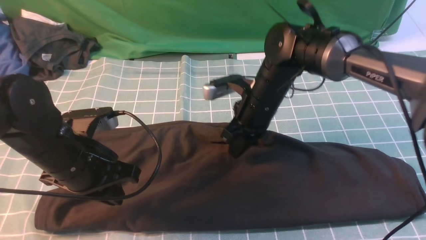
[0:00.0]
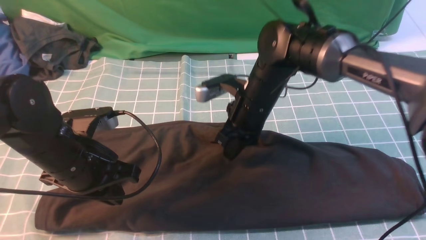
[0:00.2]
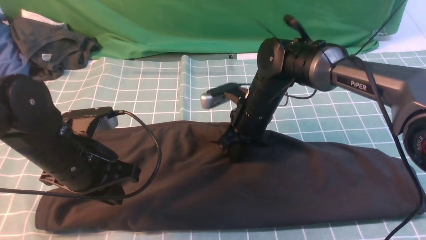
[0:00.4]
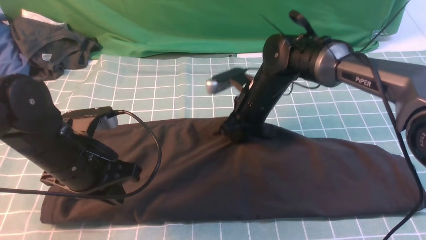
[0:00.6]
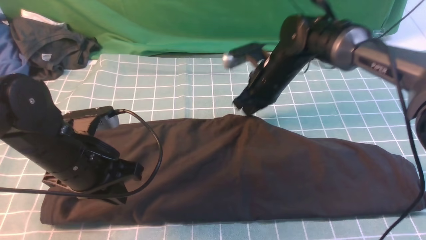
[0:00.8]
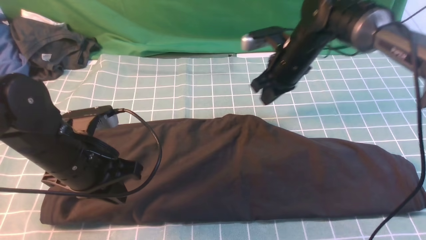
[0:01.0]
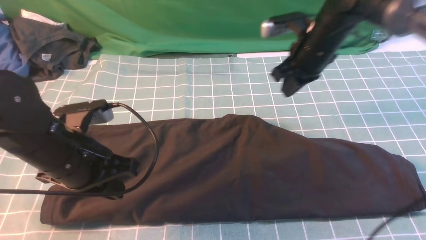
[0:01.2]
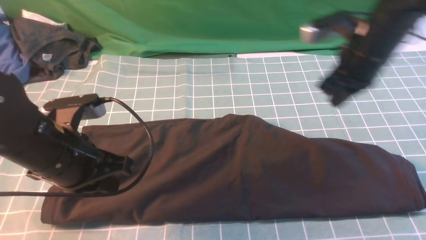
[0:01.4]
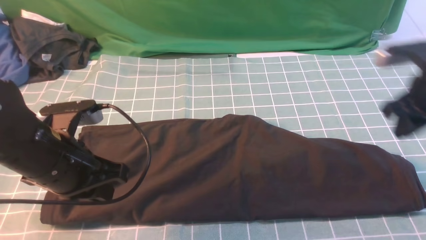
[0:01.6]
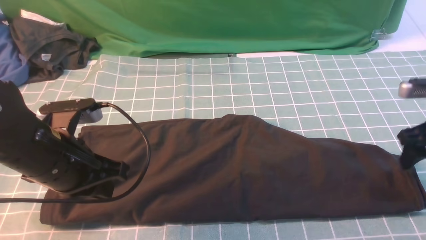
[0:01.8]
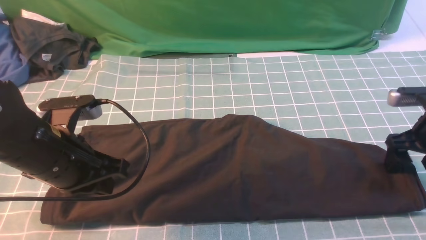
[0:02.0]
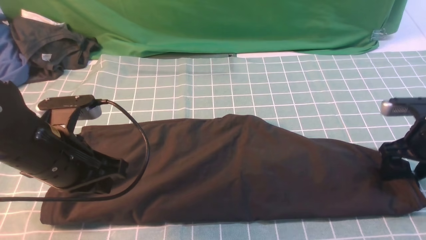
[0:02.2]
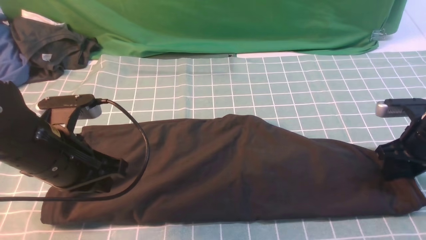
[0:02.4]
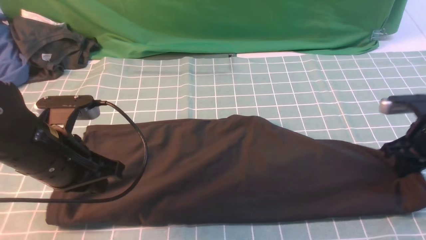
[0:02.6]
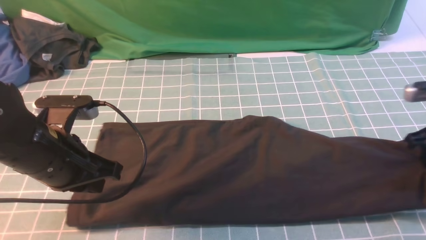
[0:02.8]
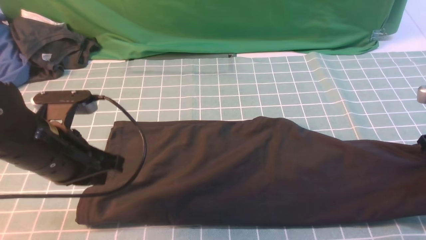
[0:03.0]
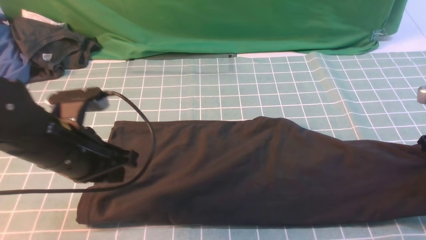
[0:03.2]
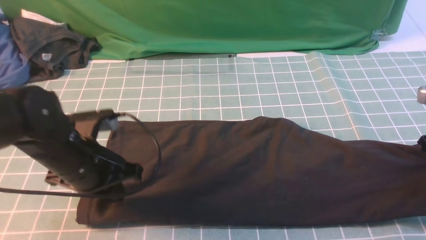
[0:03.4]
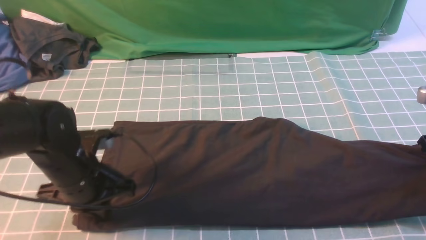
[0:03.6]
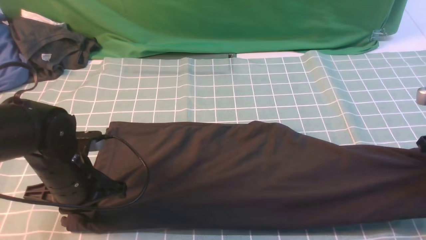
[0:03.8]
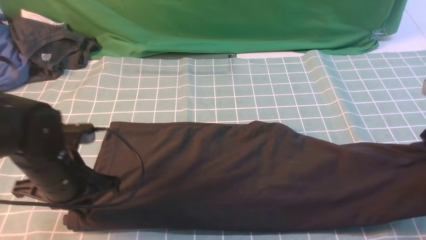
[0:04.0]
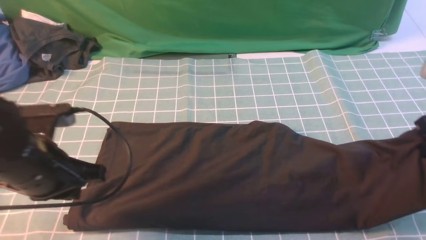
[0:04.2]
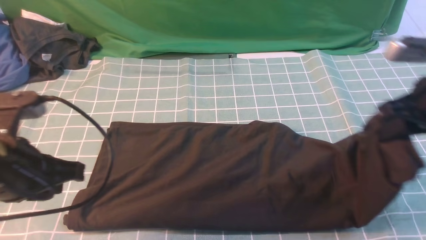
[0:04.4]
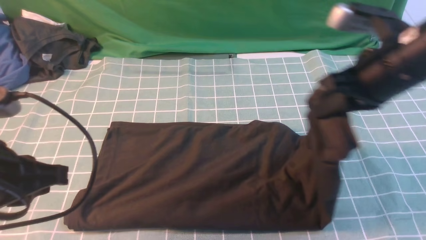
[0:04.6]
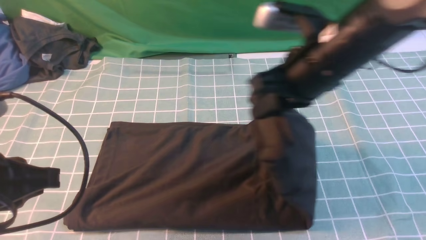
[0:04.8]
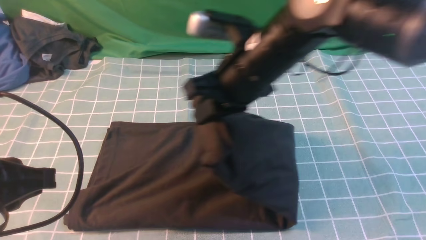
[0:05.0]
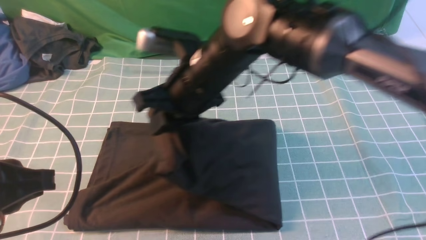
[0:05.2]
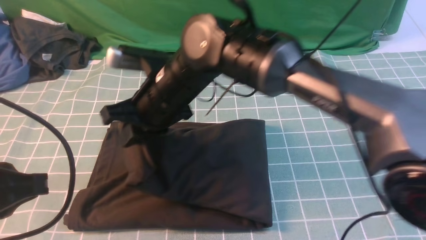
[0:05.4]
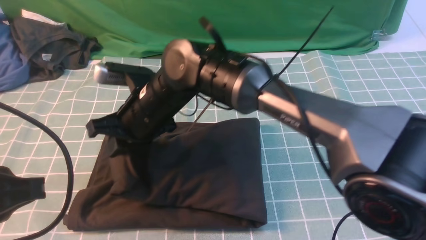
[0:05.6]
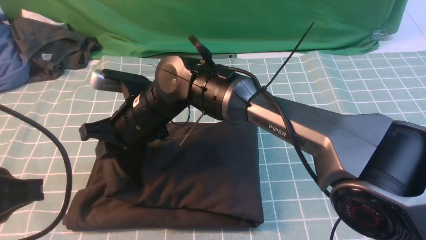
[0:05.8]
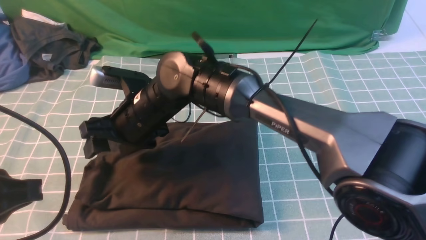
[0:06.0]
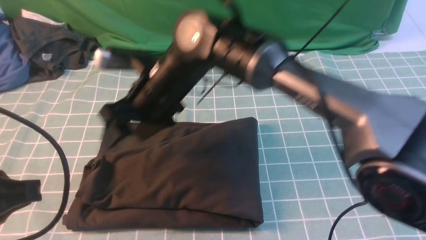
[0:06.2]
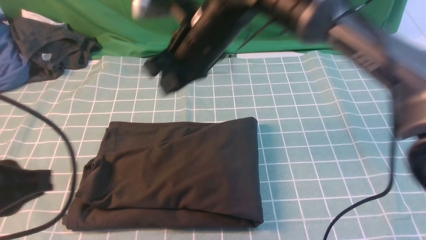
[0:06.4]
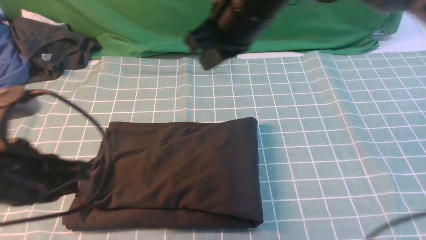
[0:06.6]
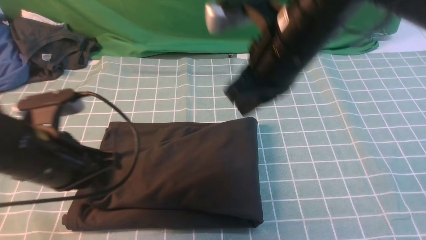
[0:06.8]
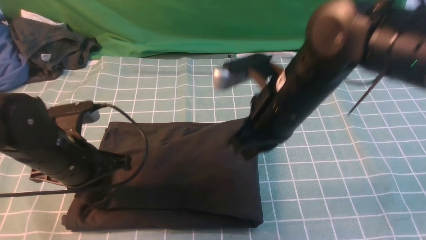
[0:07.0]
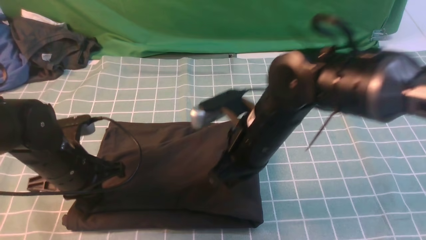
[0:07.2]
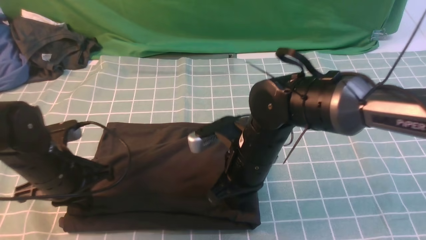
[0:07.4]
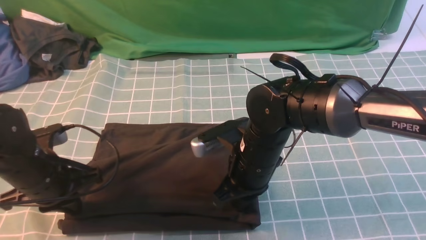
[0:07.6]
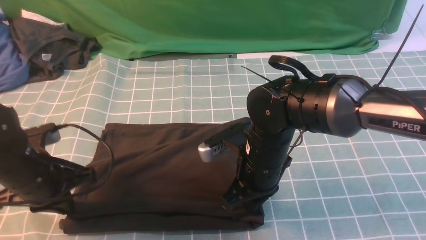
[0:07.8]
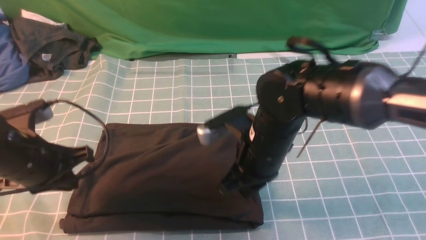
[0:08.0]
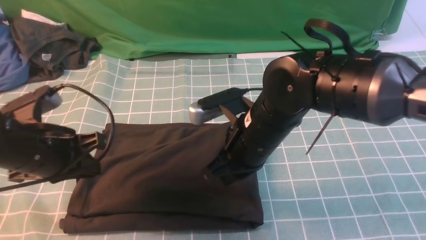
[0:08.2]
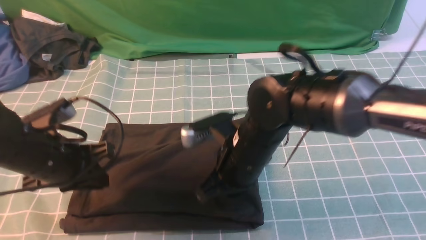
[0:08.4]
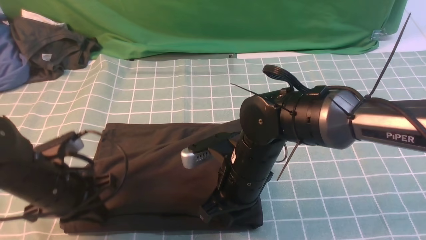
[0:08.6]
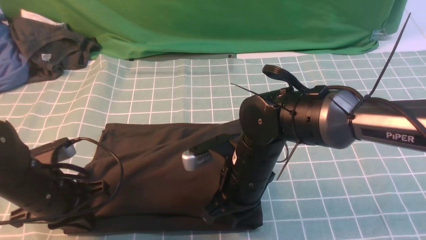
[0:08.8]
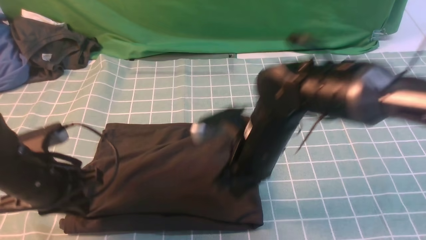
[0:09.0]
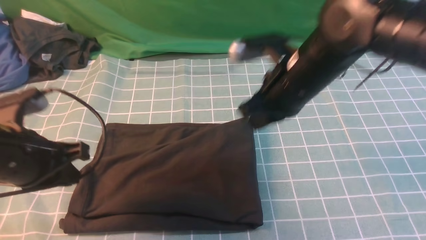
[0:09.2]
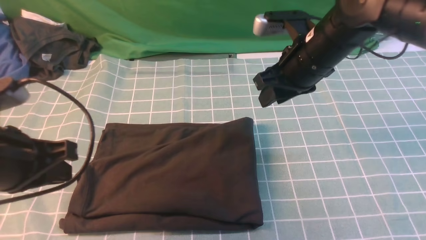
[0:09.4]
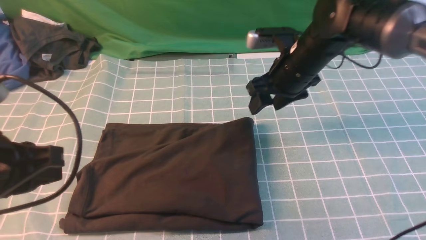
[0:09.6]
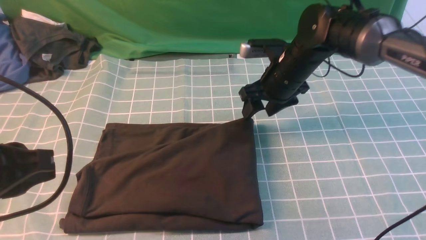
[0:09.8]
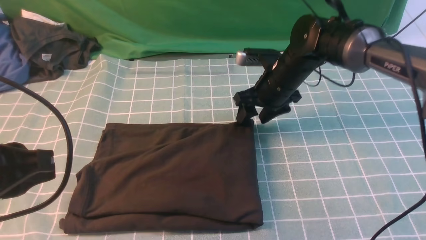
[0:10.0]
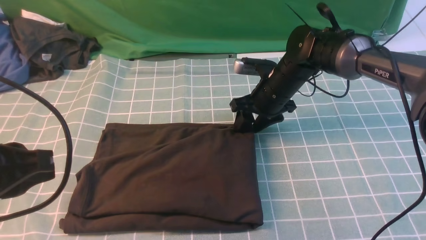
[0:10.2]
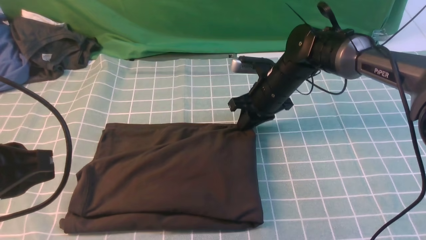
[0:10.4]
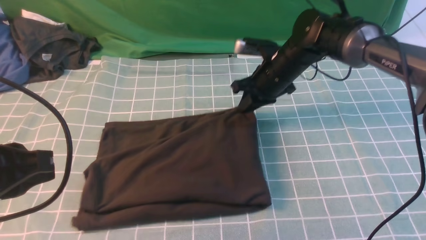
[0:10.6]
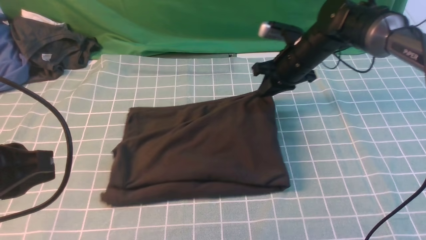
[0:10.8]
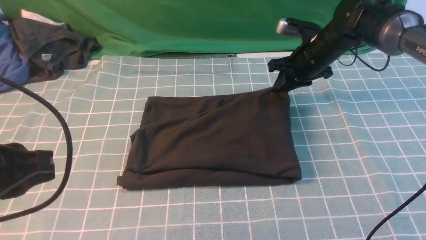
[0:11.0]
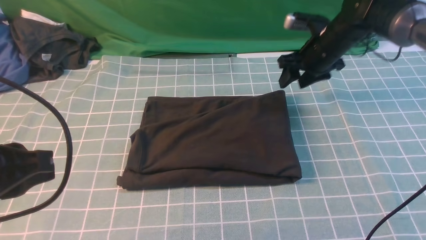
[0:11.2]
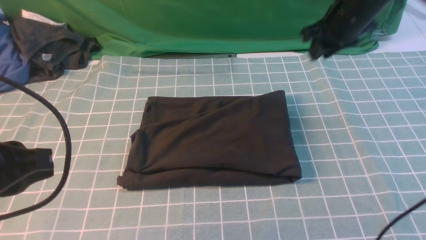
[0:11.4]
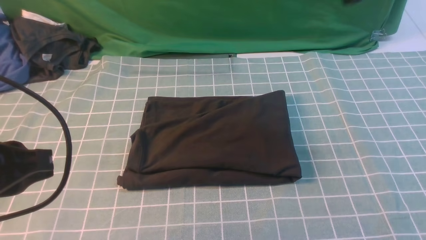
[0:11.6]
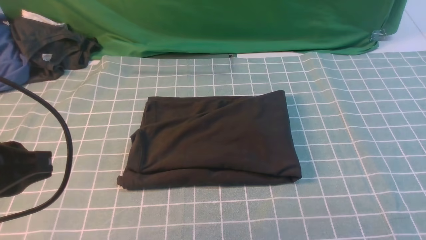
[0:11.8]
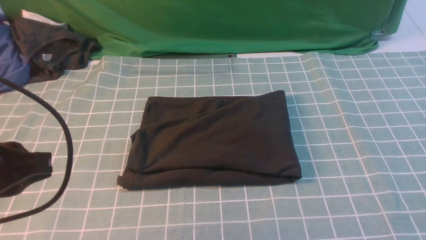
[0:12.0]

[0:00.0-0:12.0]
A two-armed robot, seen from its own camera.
Step, 0:00.0 to 0:02.8: use the right arm to clamp the right edge of the fabric.
Step, 0:03.0 to 0:06.2: use the right arm to drag the right edge of the fabric to the left and folds it over the left edge.
0:00.0 to 0:01.6: The right gripper travels to the right by roughly 25 cm, and opens.
0:01.6 to 0:03.0: The right gripper moves to the right, some 5 cm, and closes up.
0:03.0 to 0:04.4: The left gripper is displaced backward by some 5 cm. The right gripper is displaced to the left and upward by approximately 15 cm.
0:04.4 to 0:06.0: The left gripper heads backward, covering some 5 cm; the right gripper heads to the left, covering about 35 cm, and opens.
0:06.0 to 0:07.6: The left gripper is displaced downward and forward by some 20 cm; the right gripper heads to the right, covering roughly 15 cm, moves approximately 10 cm upward and comes back, and closes.
0:07.6 to 0:09.0: The right gripper moves upward, approximately 5 cm.
0:09.0 to 0:10.4: The left gripper is displaced upward and backward by approximately 15 cm; the right gripper travels forward by about 15 cm, and opens and closes again.
0:10.4 to 0:12.0: The right gripper travels upward, backward and to the right by roughly 40 cm.

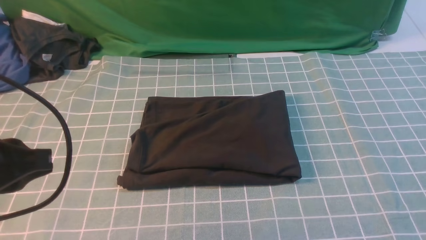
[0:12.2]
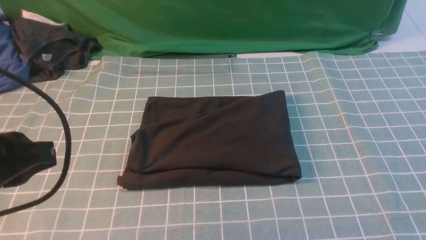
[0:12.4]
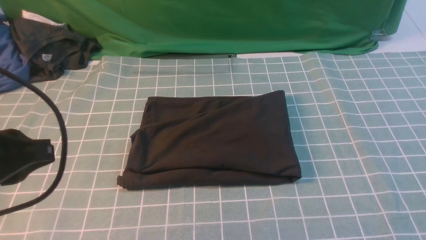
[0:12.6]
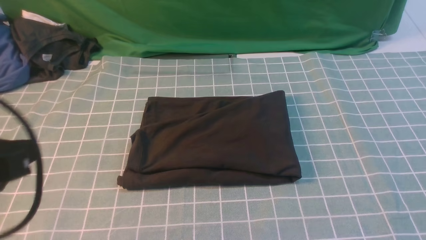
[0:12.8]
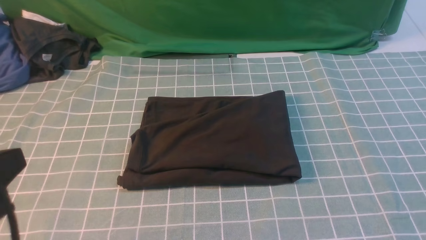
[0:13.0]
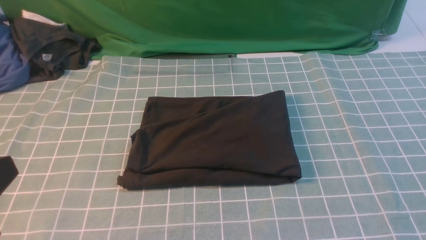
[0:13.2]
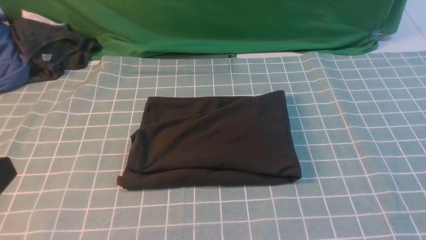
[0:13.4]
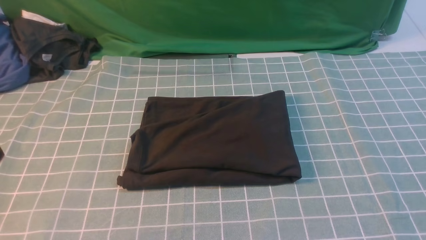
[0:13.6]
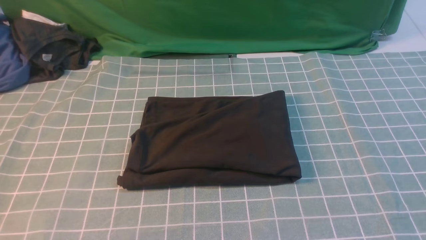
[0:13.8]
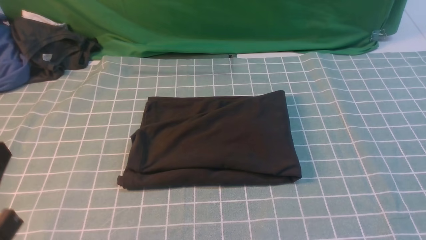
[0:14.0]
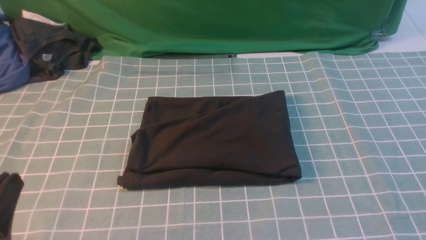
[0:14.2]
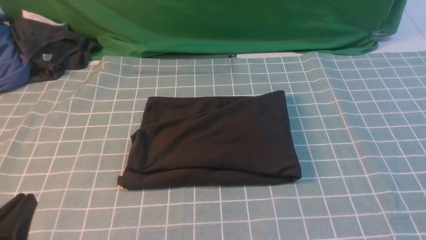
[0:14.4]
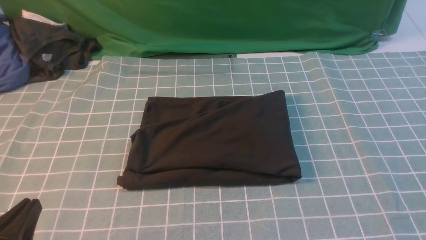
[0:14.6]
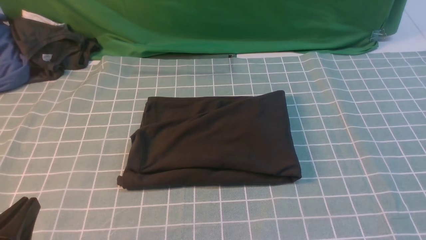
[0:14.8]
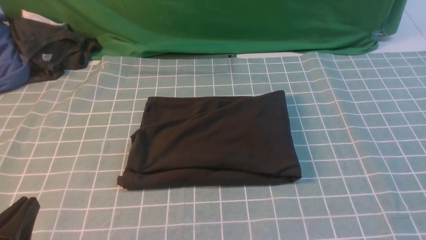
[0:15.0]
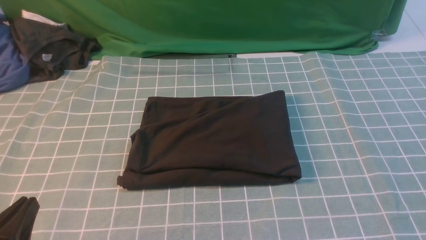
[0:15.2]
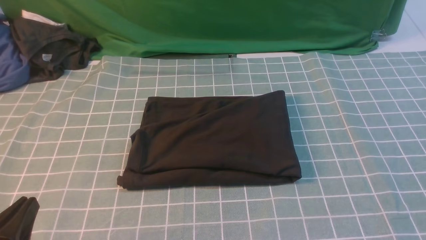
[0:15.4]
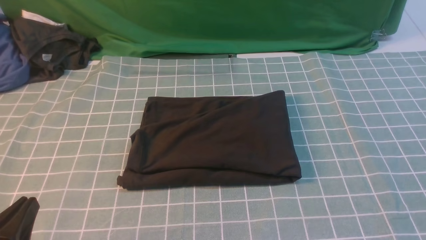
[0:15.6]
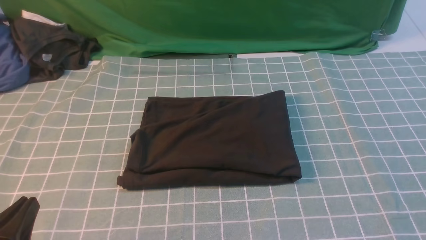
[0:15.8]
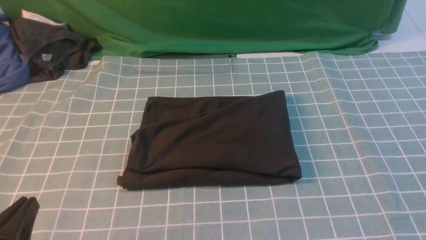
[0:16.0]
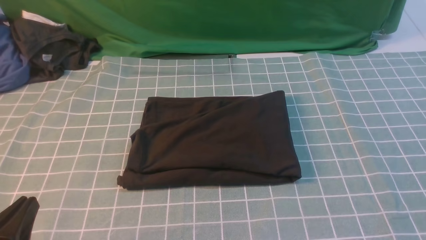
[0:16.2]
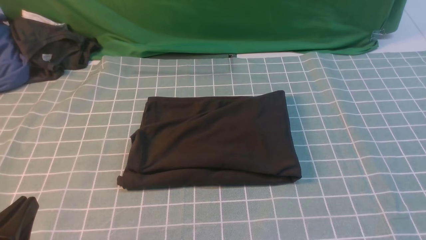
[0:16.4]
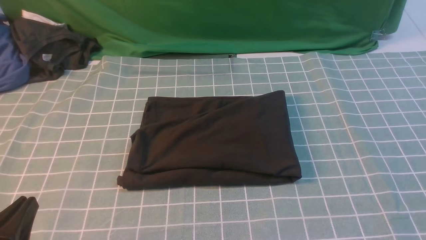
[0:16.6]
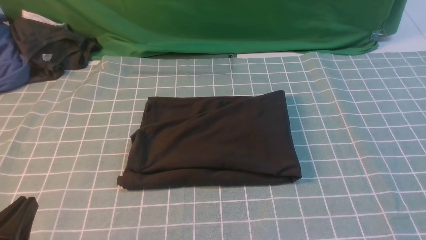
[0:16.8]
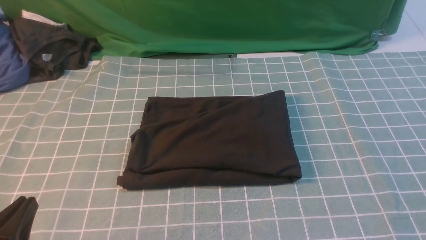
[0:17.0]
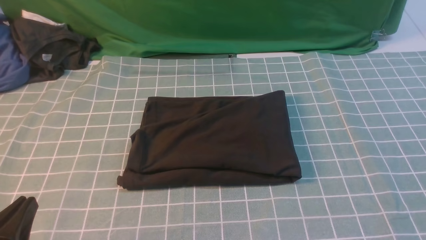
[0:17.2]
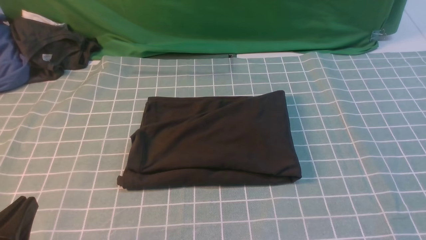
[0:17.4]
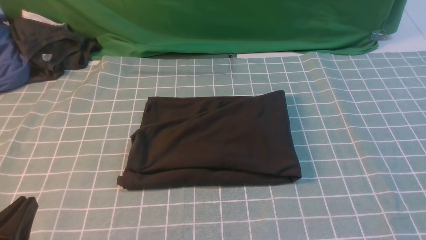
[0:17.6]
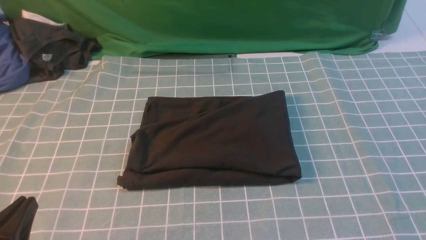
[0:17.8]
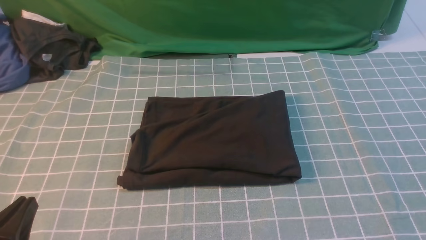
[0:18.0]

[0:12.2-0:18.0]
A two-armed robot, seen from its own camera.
0:12.2 to 0:13.6: The left gripper heads backward, covering approximately 10 cm.
0:13.6 to 0:15.0: The left gripper goes some 15 cm downward.
0:16.6 to 0:18.0: Both grippers stay put.
